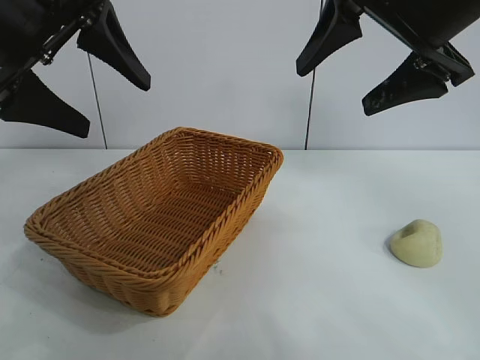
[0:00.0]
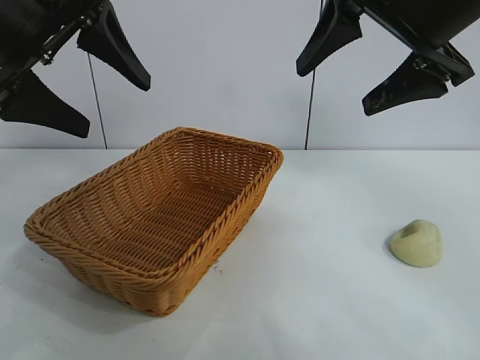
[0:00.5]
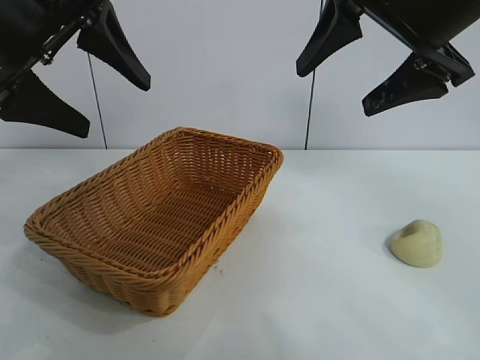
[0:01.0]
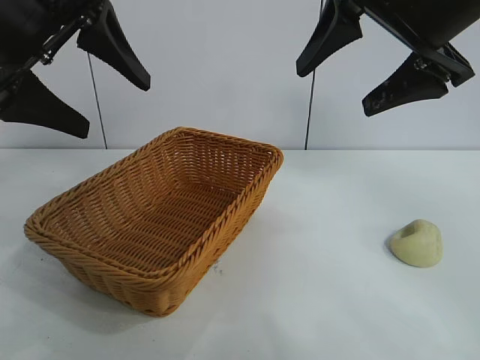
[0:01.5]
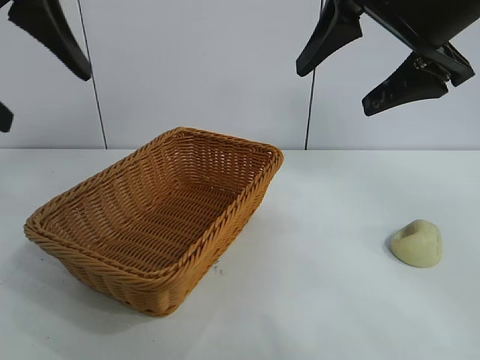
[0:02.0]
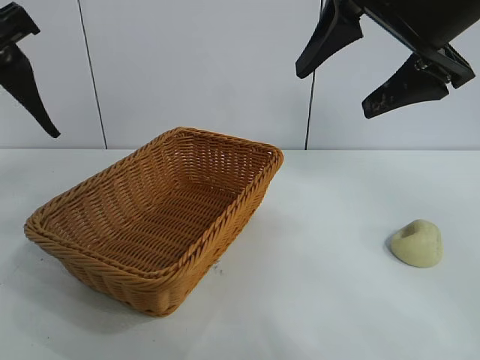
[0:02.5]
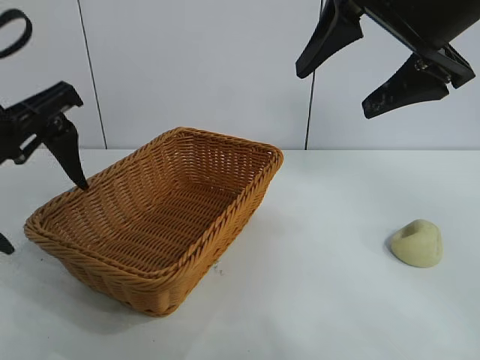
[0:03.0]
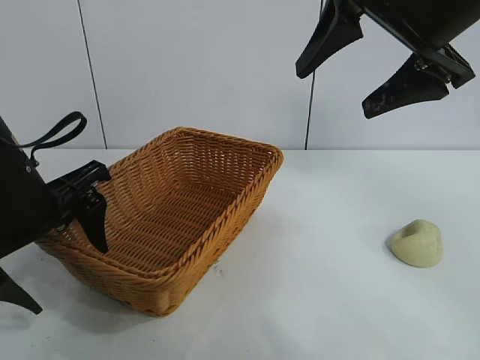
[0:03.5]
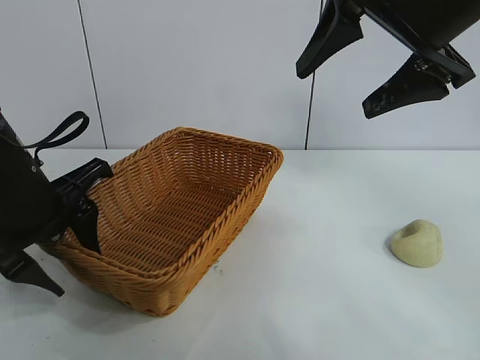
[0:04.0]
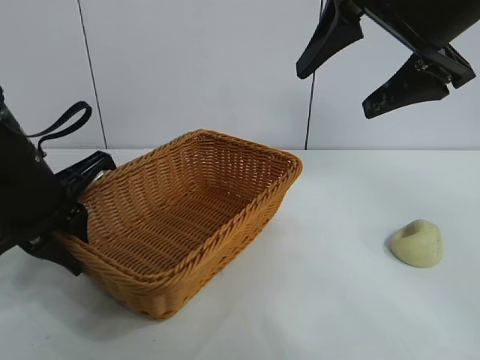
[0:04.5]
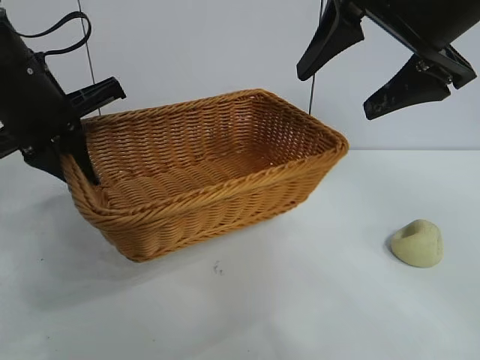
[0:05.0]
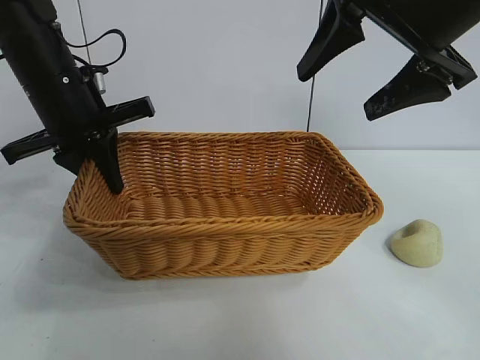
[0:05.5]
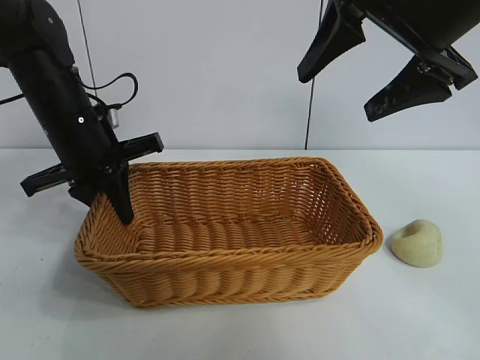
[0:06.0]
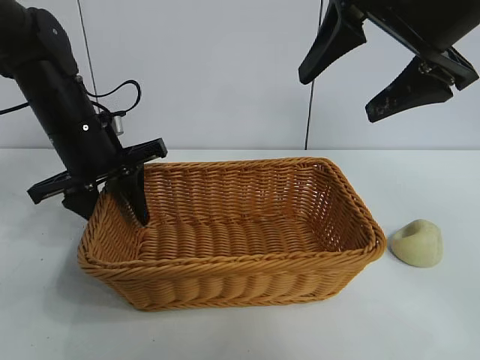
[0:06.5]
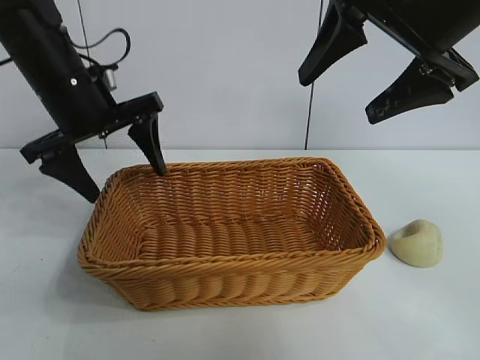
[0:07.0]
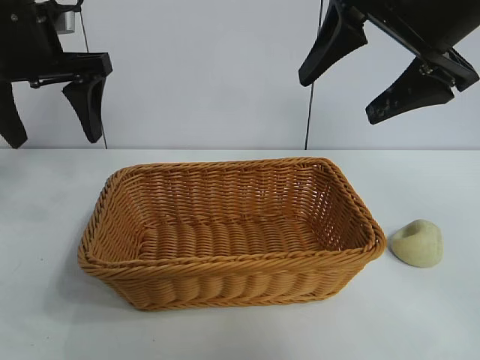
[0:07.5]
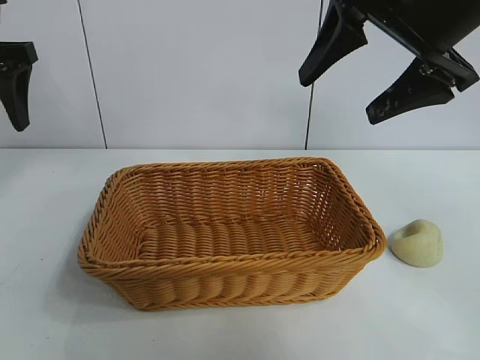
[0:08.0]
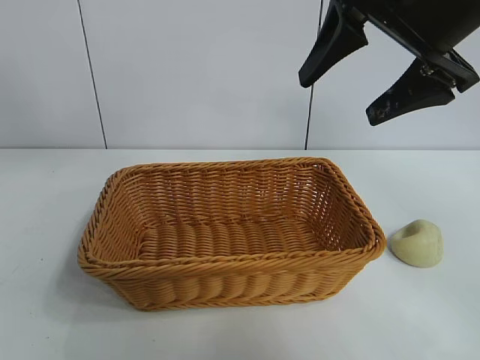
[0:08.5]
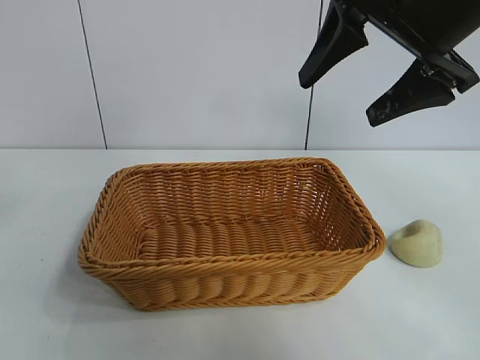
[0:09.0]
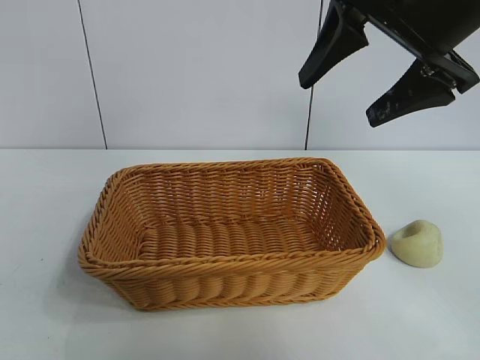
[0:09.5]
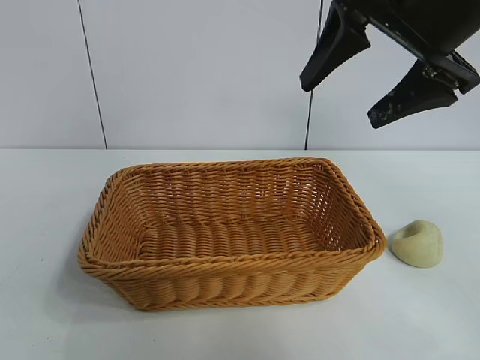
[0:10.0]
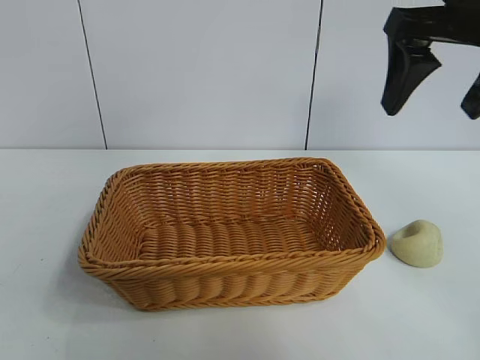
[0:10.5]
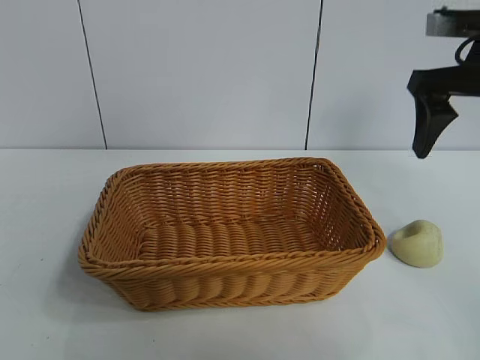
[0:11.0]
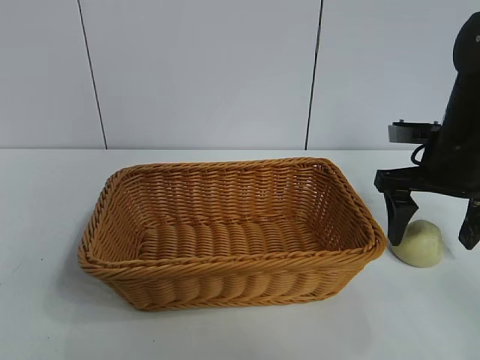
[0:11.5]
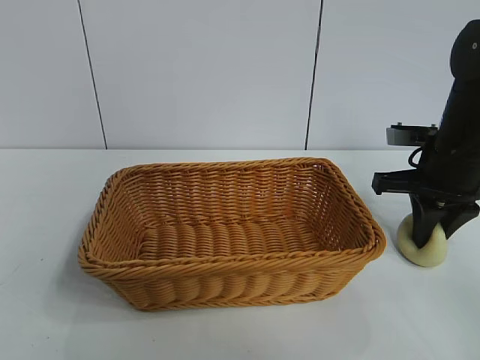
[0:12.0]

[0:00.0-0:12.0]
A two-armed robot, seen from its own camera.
Task of the whole recording: pick up the egg yolk pastry and put it into the basket.
Step, 0:02.0 to 0:04.0: Grasp the basket with left gripper.
Step, 0:04.5 to 0:06.5: Place the basket in the center of view with left gripper.
Step, 0:07.0 to 0:11.5: Grasp egg yolk pastry with right gripper.

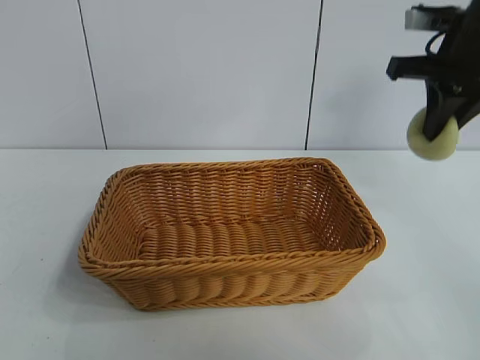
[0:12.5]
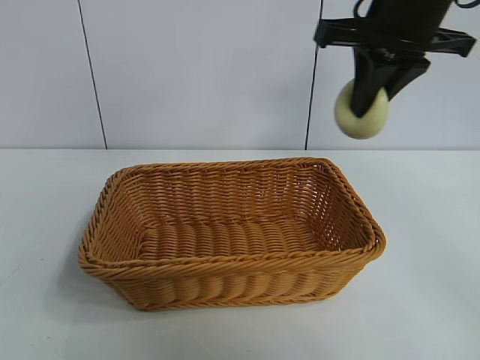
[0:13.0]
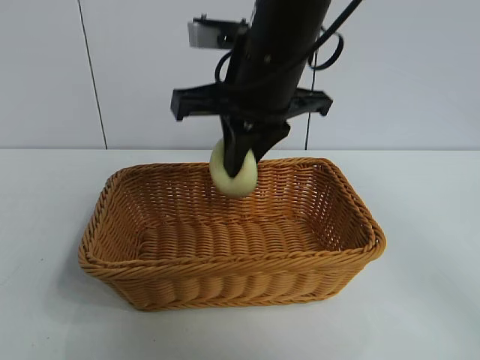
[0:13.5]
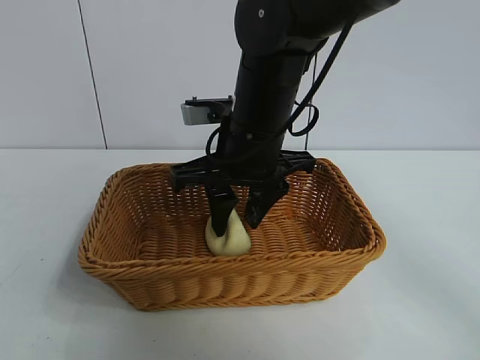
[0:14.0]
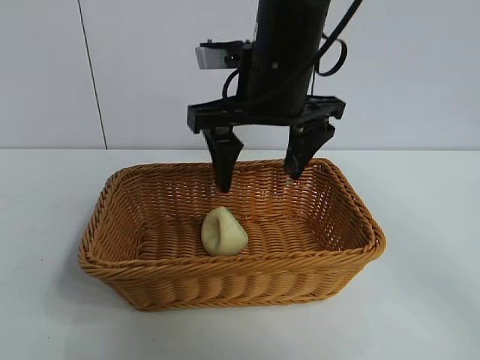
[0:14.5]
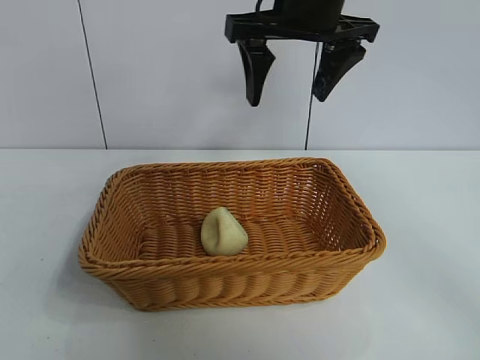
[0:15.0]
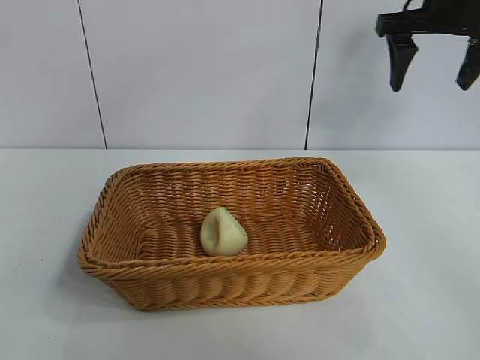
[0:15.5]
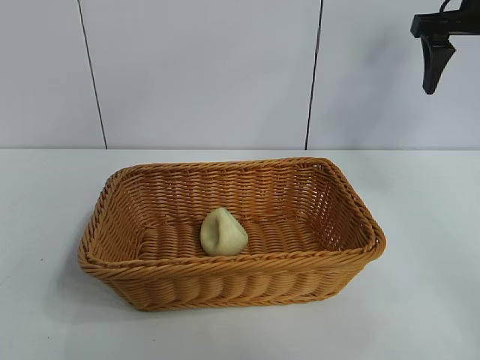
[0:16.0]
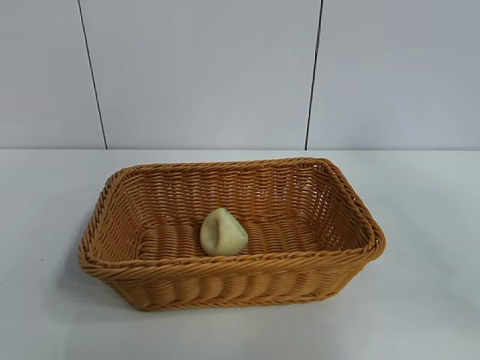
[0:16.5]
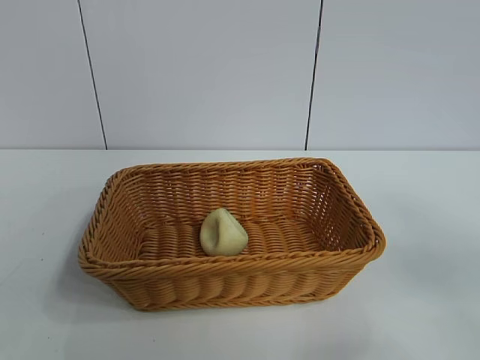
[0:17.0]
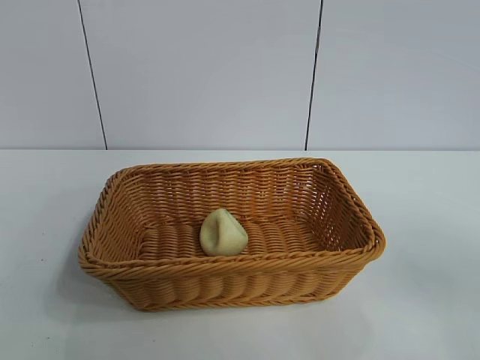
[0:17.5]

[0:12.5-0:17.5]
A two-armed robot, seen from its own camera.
Task of the whole recording: pick up the egg yolk pastry and put it into the basket.
Step, 0:12.5 to 0:14.0: Place the egg yolk pastry in the basket with right gripper.

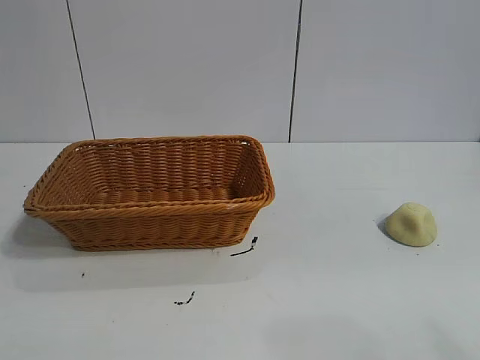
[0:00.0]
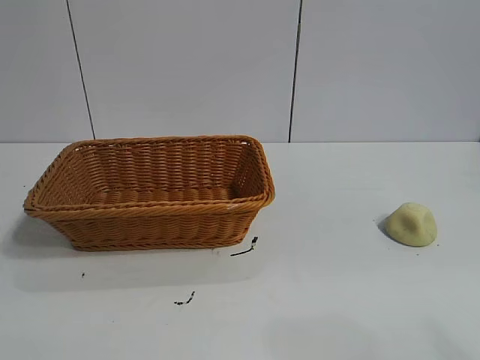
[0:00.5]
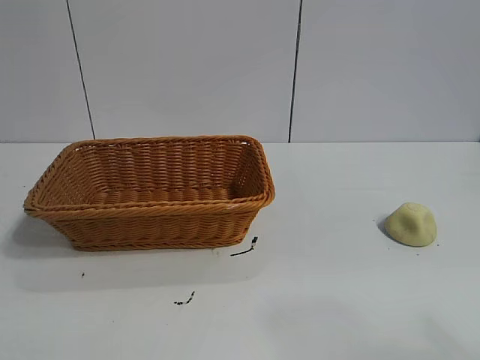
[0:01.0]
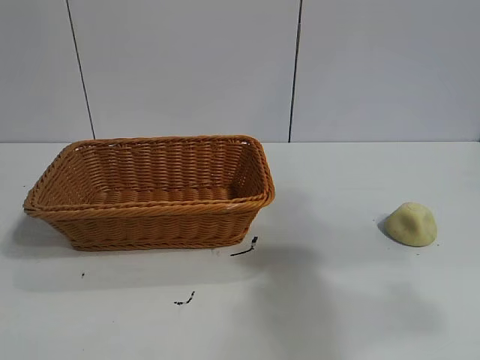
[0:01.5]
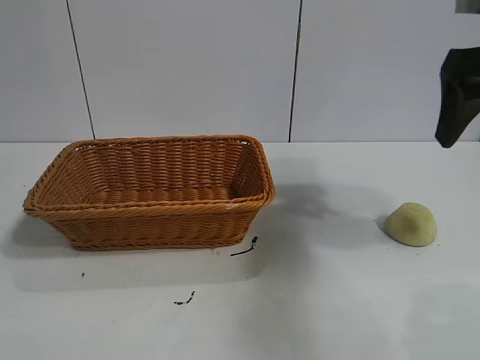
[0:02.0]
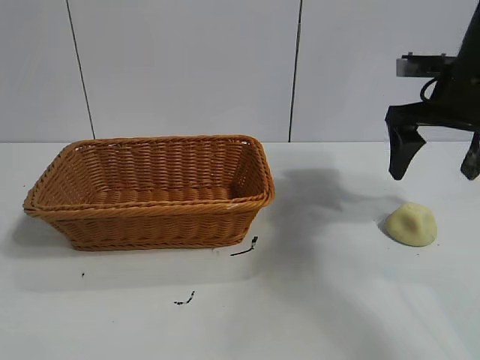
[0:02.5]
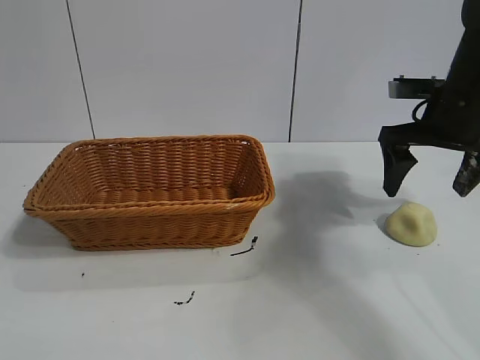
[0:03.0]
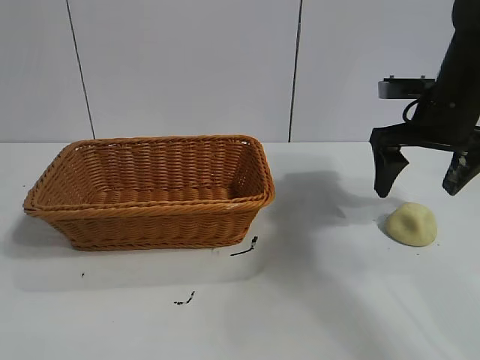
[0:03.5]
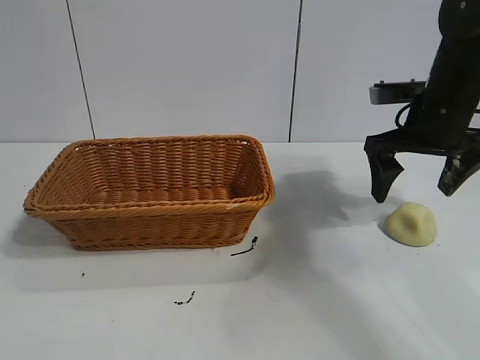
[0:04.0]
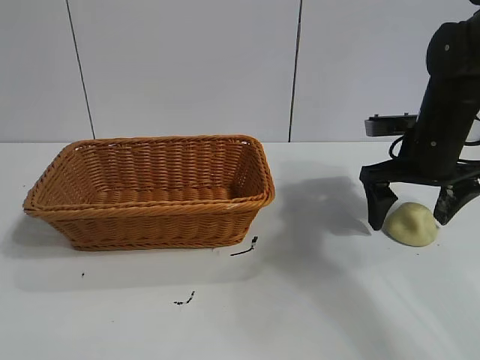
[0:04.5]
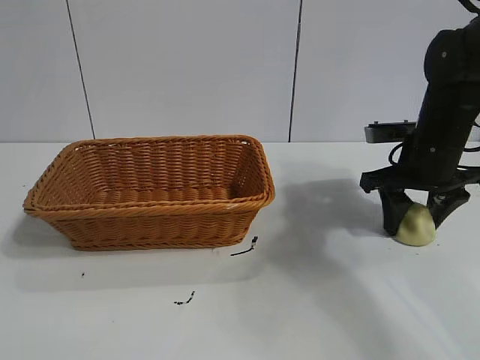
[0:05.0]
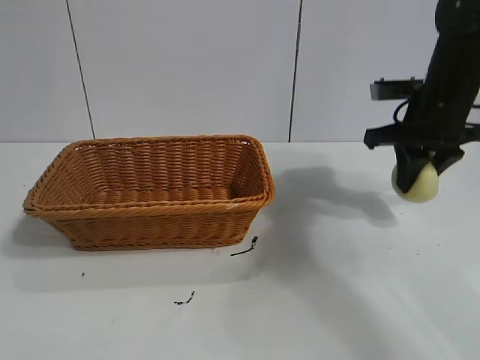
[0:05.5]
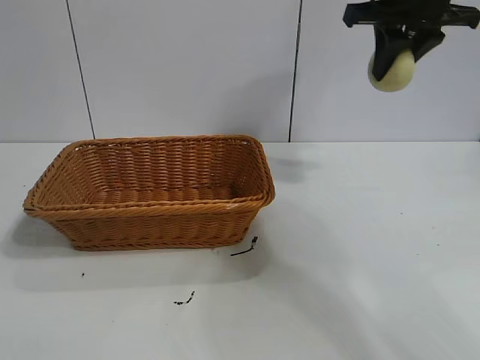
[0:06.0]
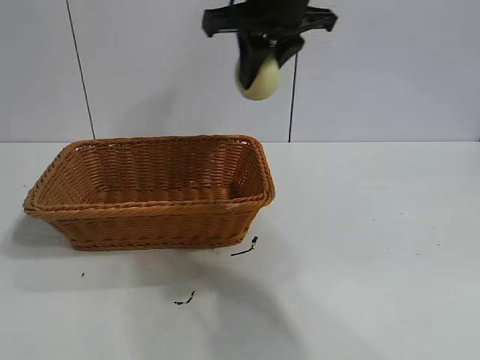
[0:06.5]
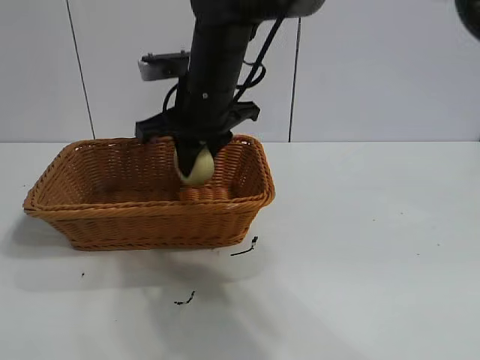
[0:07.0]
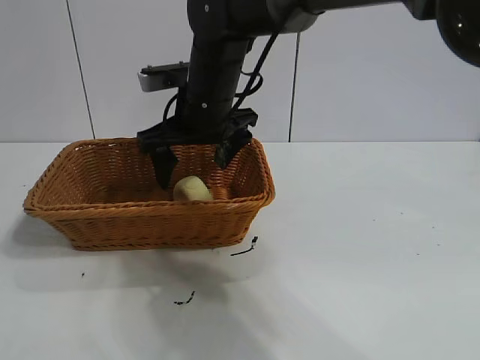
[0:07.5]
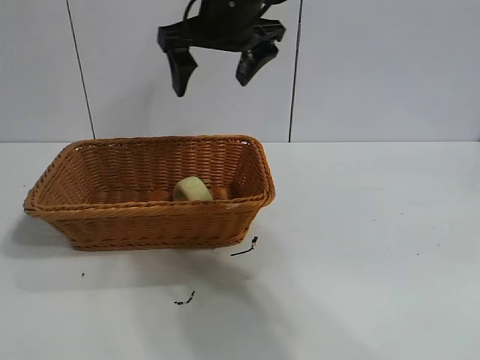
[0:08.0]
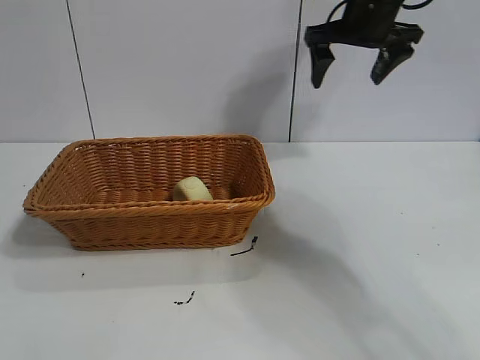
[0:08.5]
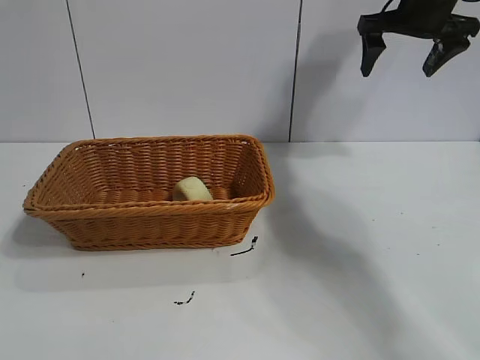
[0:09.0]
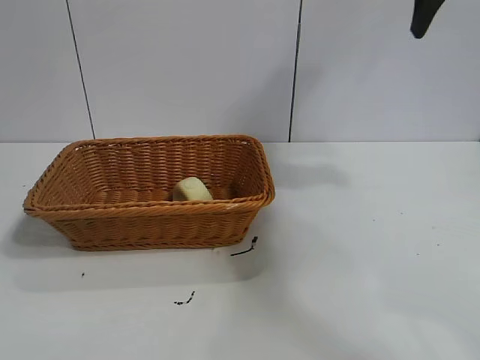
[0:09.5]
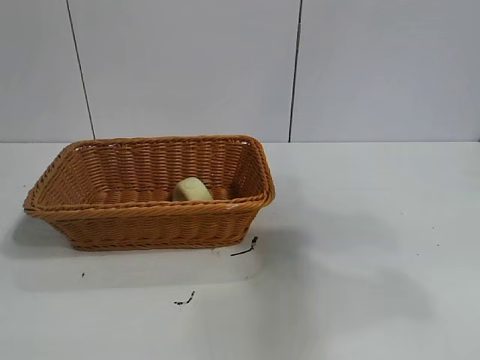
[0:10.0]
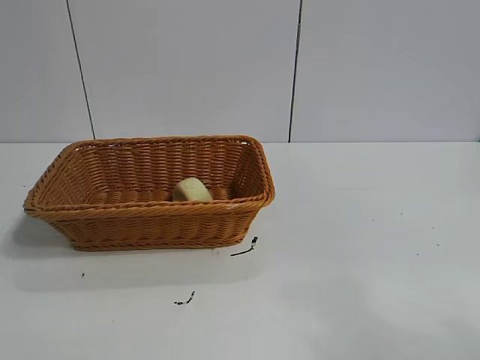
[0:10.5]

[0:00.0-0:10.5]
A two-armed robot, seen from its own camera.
Task of the whole recording: pick up the egg yolk pastry and put it into the basket.
Step, 0:01.0 to 0:05.0: Grasp egg yolk pastry with right gripper.
Step, 0:05.5 to 0:07.0: Place the egg yolk pastry in the basket with right gripper.
